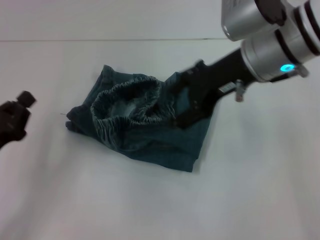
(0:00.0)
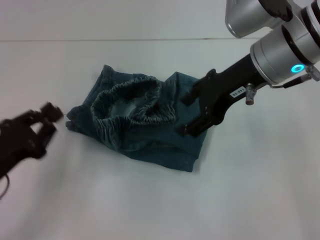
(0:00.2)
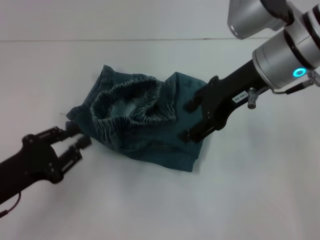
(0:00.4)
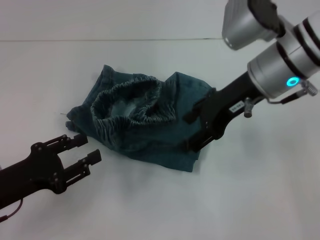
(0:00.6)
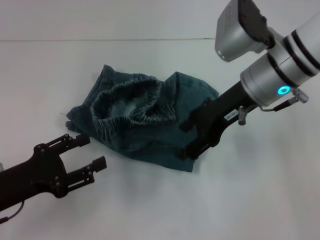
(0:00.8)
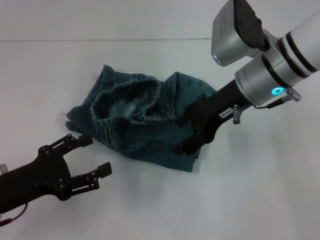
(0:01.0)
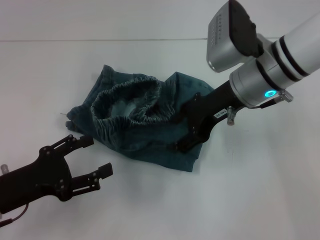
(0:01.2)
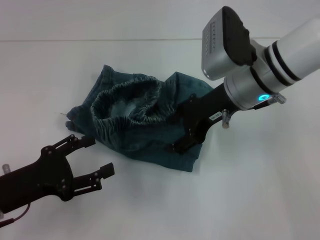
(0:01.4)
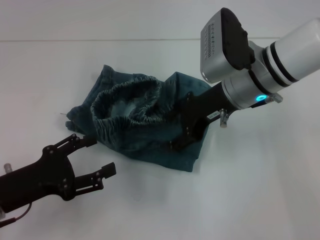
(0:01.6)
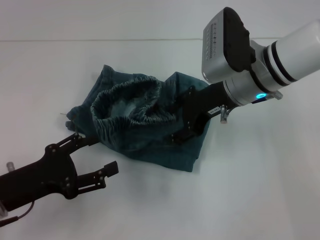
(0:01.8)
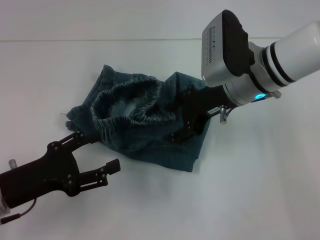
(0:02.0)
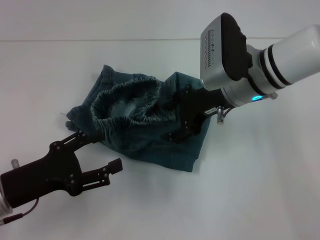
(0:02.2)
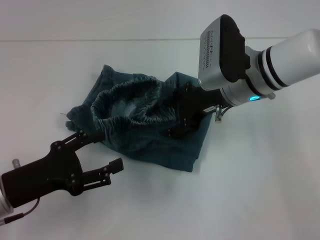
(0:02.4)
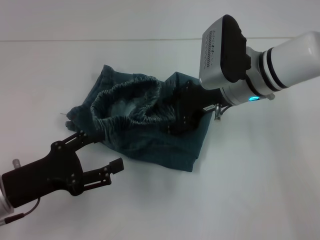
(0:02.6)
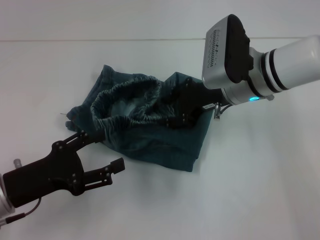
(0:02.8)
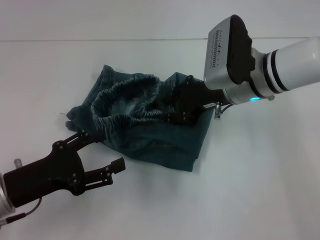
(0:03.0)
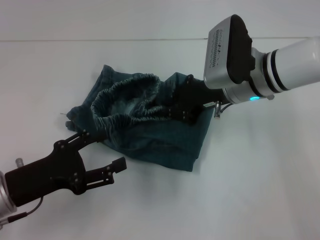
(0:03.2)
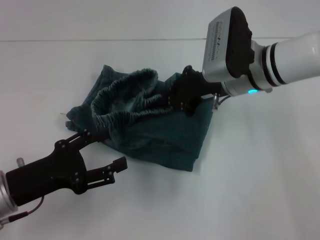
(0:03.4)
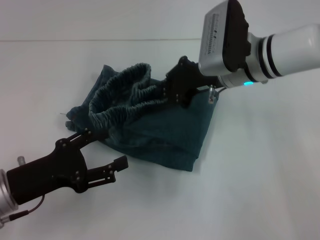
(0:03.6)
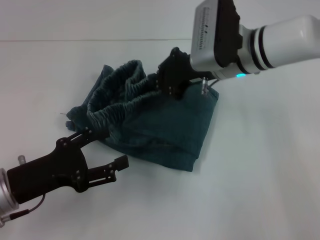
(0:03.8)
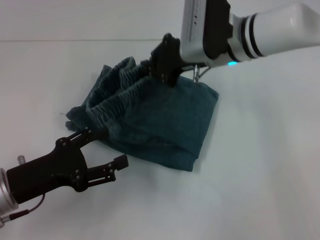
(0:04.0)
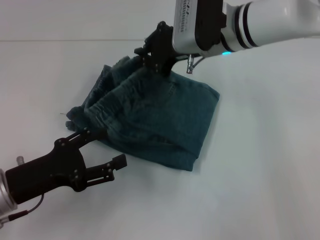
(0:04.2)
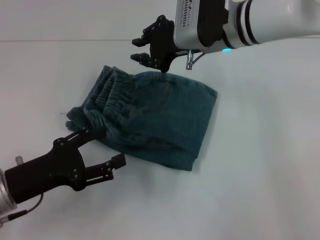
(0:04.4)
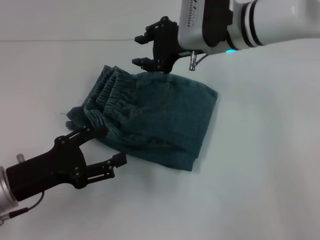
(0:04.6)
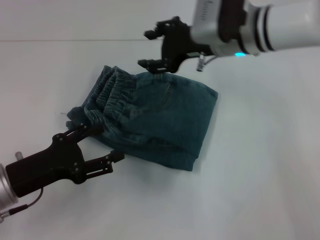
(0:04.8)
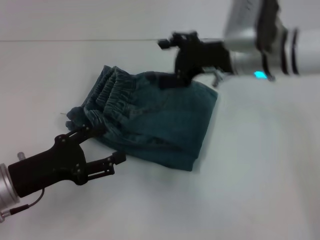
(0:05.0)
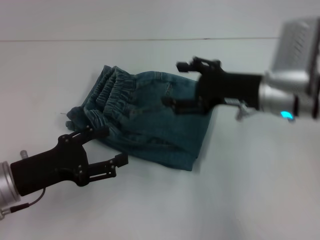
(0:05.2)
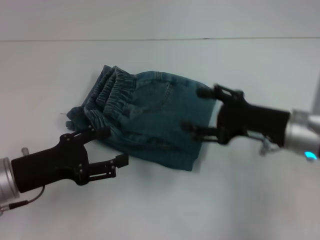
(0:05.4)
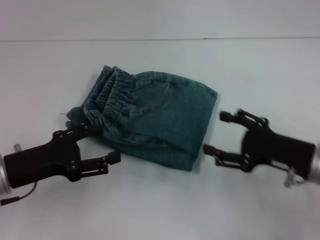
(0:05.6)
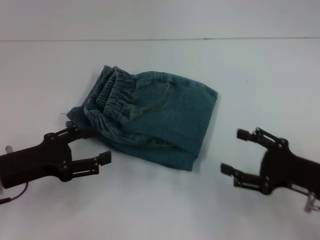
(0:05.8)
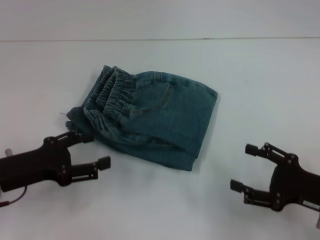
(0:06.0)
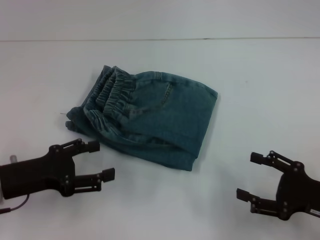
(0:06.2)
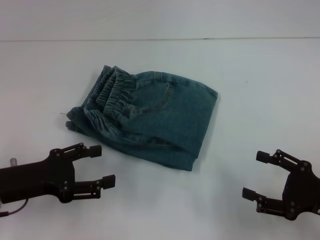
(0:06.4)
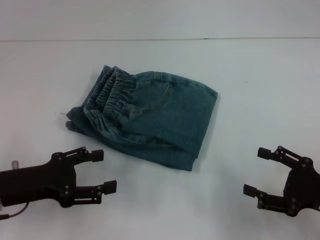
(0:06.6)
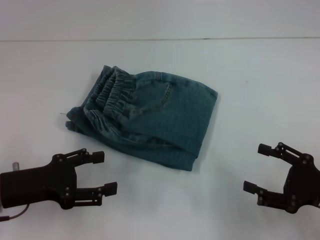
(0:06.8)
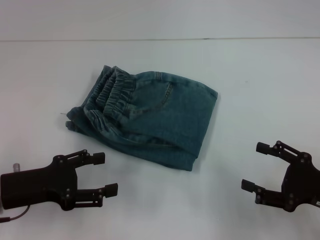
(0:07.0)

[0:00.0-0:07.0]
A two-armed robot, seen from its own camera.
Step, 0:00.0 to 0:04.2: Fold to the left with your right hand.
0:00.0 to 0:01.4: The right gripper goes approximately 5 cm downward; the left gripper opens up.
0:01.4 to 0:02.8: There are only small adjustments of the grippers.
0:02.8 to 0:04.2: The right gripper shifts by some 5 cm, and closes its fingers.
0:04.2 to 0:05.6: The right gripper is displaced backward, to the right and downward by approximately 25 cm, and opens its fingers.
0:05.6 to 0:07.0: The right gripper shifts some 10 cm backward and to the right.

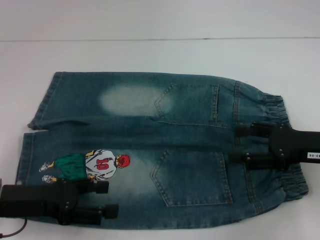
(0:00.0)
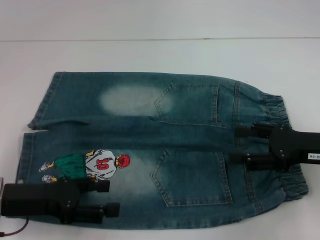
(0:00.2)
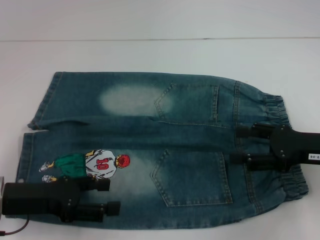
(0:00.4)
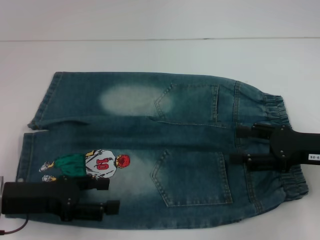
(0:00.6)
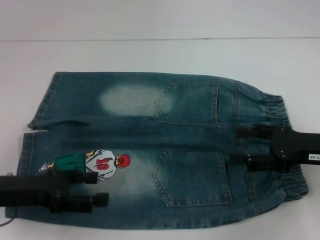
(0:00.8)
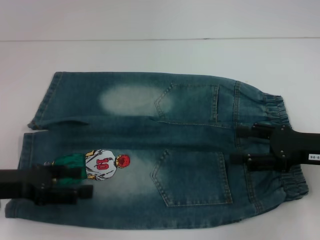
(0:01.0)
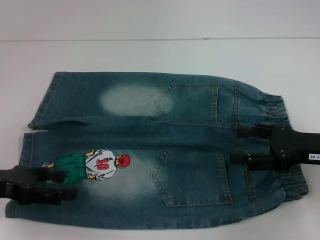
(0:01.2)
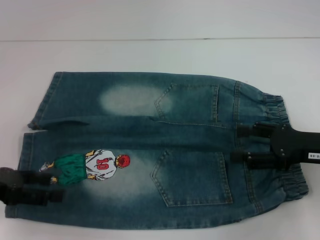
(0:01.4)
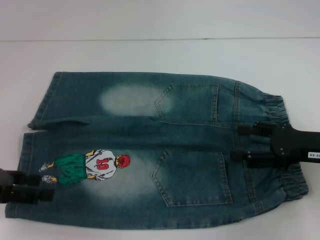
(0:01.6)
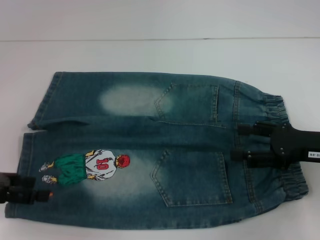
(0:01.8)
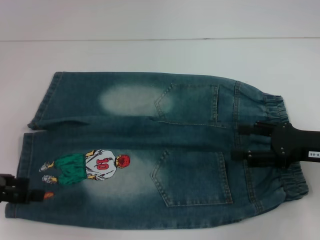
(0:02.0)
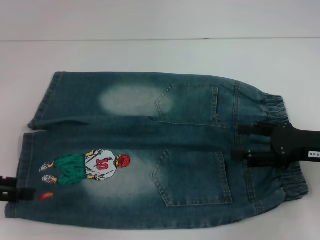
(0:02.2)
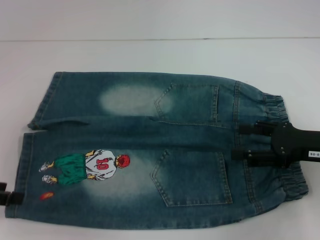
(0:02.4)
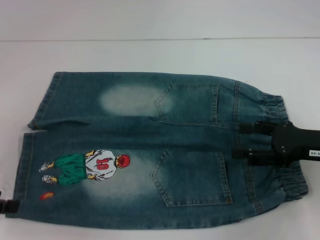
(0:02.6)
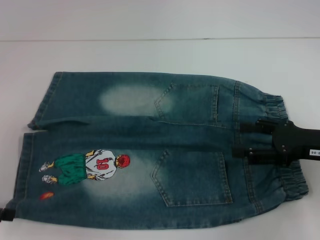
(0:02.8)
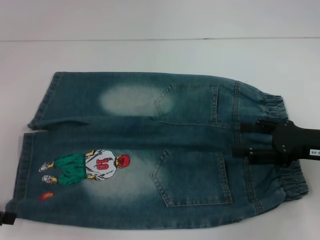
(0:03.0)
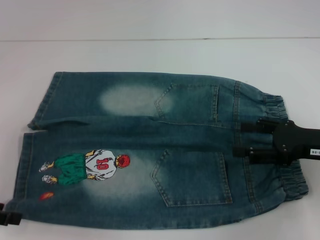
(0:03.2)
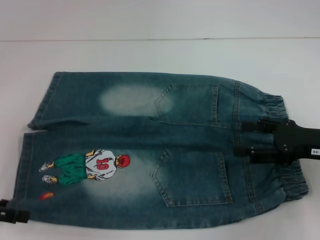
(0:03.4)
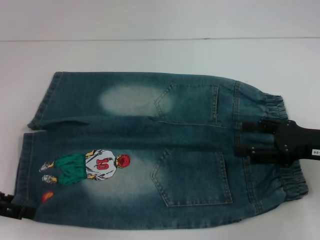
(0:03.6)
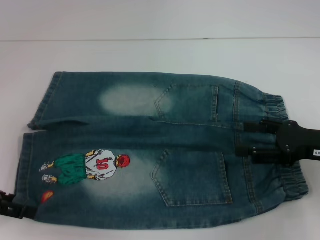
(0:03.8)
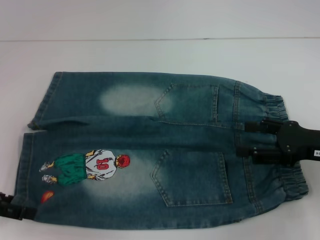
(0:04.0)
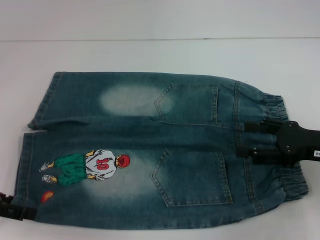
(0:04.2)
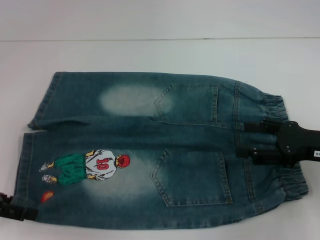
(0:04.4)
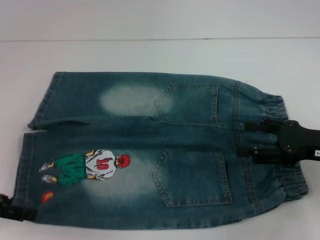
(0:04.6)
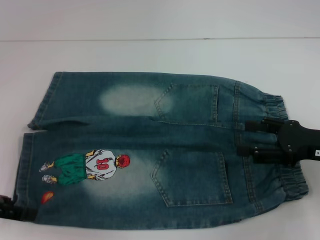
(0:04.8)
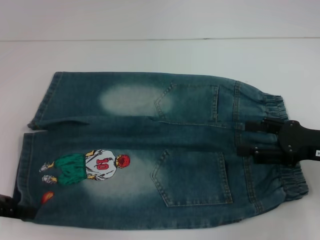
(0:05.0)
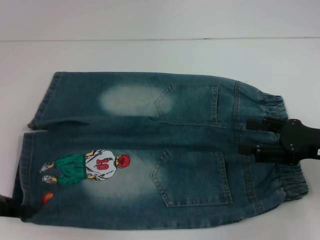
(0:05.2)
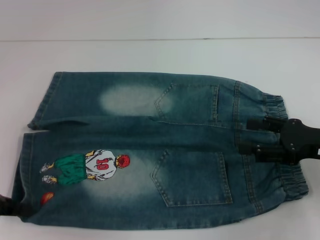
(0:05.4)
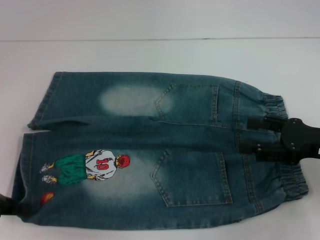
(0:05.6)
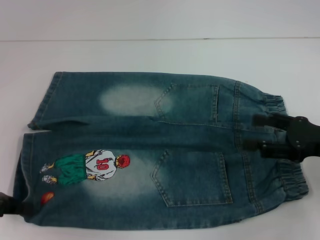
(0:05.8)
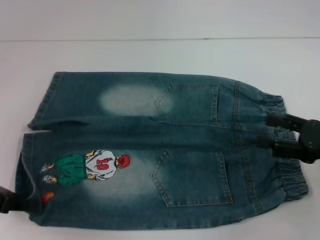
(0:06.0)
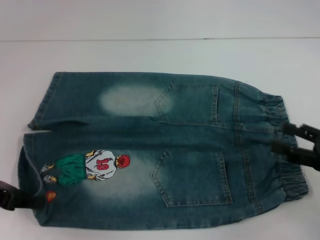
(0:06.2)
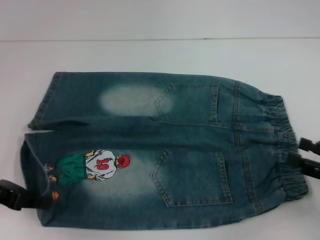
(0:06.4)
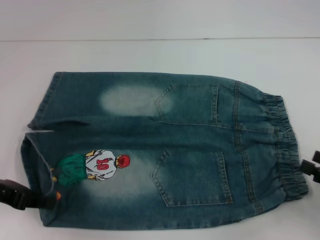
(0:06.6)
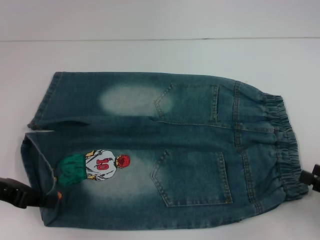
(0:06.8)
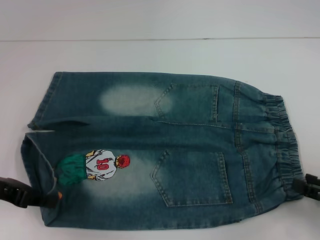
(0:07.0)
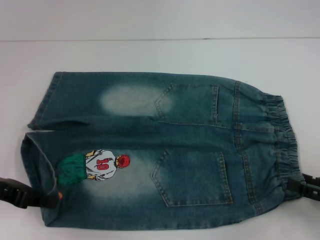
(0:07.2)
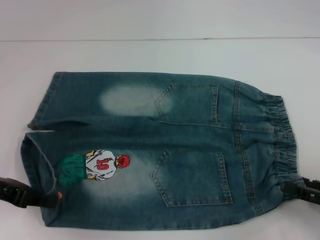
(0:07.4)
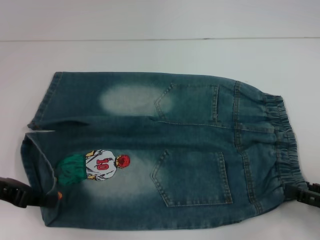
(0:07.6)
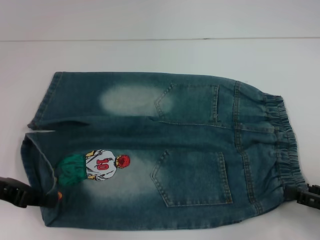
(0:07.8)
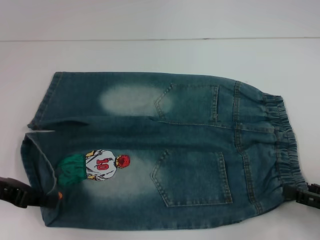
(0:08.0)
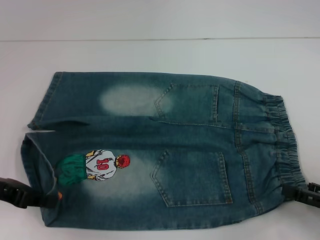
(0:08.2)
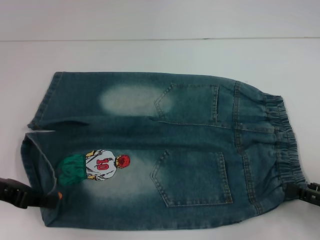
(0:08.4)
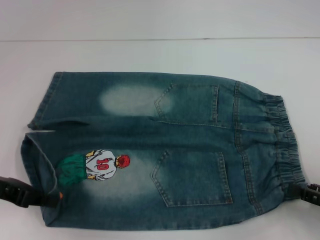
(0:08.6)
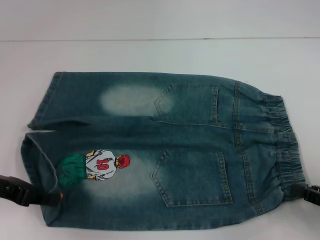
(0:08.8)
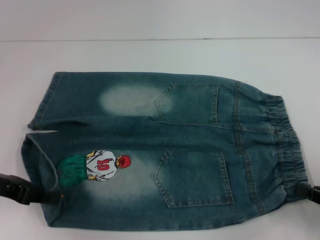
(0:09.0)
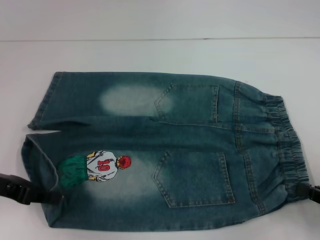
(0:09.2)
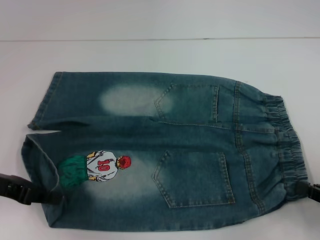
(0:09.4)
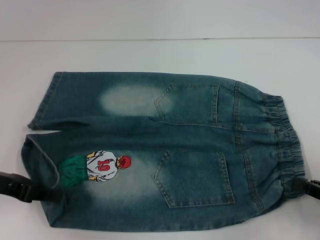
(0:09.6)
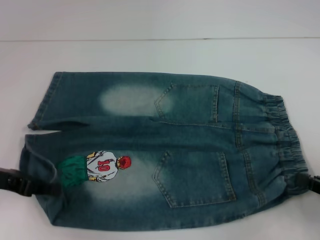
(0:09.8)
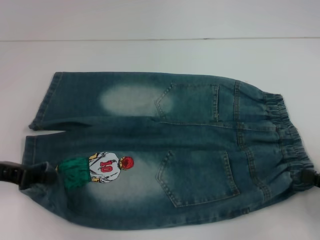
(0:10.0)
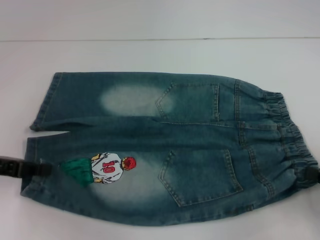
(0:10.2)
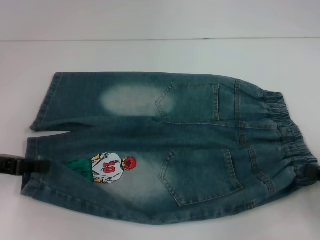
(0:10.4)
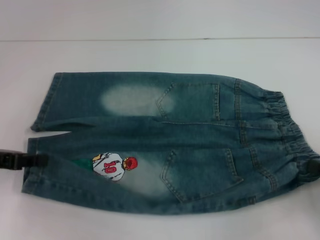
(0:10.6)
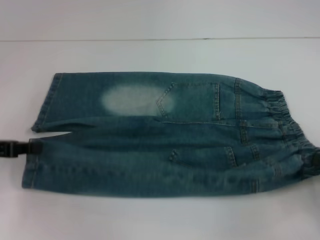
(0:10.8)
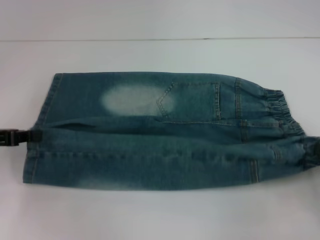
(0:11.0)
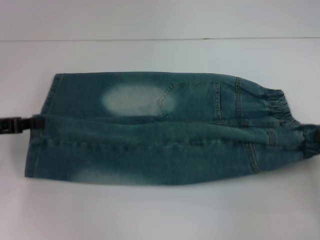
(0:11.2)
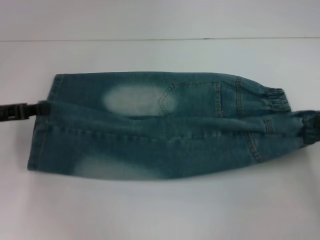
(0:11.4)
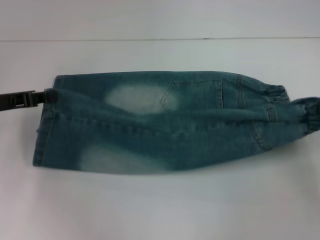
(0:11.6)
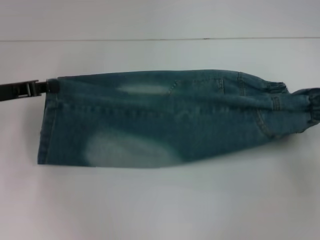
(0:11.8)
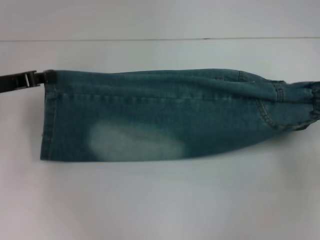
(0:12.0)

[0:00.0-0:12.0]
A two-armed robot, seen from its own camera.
Step, 0:00.0 to 0:05.2: Grab the lower left pant leg with your left hand.
Step, 0:05.6 to 0:09.8: Hold the lower right waistband with your right hand.
0:00.0 to 0:01.6: The left gripper shifts some 5 cm to the left.
0:01.6 to 0:04.4: There are only small adjustments of the grippers.
0:04.4 to 0:06.0: The left gripper closes its fingers.
0:06.0 to 0:07.6: The right gripper heads backward and downward, covering roughly 10 cm.
0:07.6 to 0:09.0: The right gripper closes its fingers.
0:09.0 to 0:10.4: The grippers make only small movements.
0:10.4 to 0:12.0: The right gripper heads forward and upward, covering roughly 15 cm; the left gripper shifts about 5 cm forward.

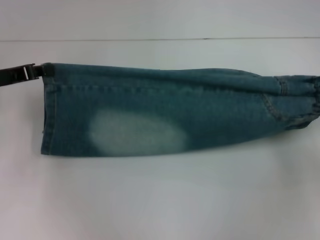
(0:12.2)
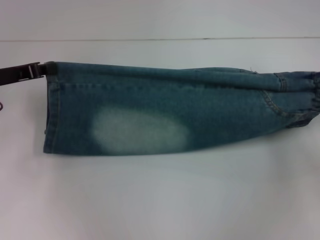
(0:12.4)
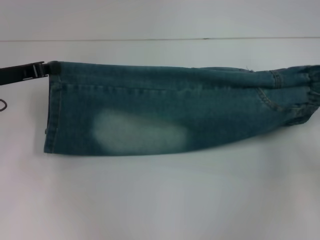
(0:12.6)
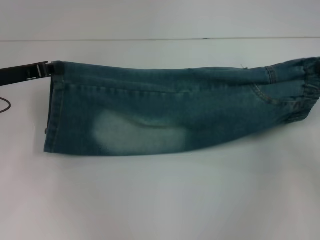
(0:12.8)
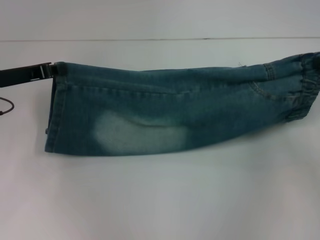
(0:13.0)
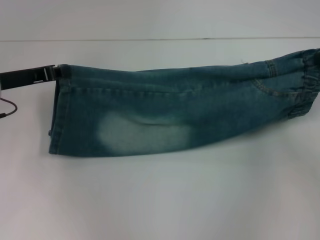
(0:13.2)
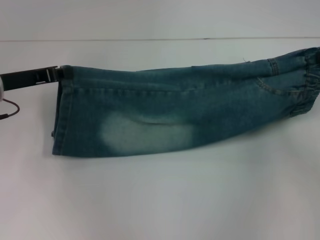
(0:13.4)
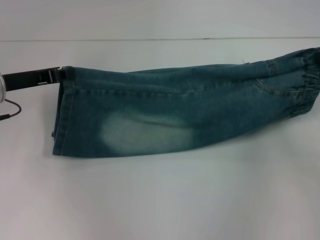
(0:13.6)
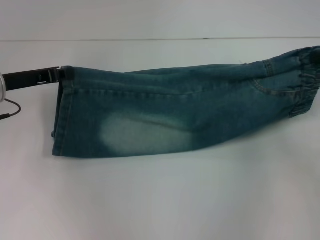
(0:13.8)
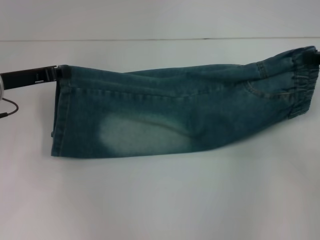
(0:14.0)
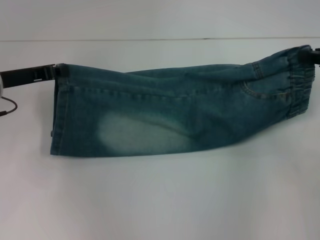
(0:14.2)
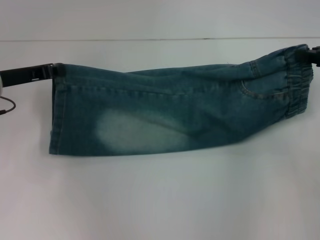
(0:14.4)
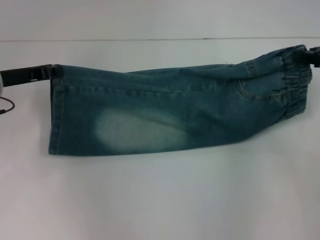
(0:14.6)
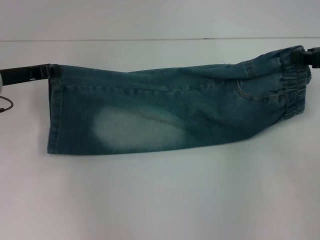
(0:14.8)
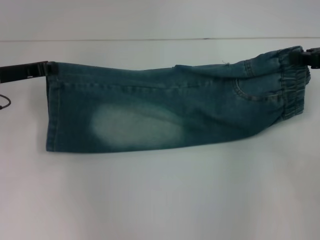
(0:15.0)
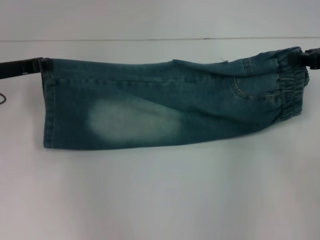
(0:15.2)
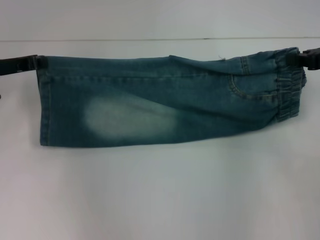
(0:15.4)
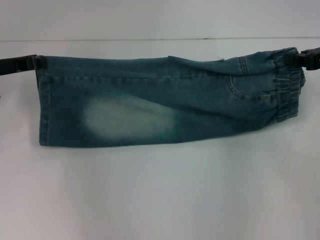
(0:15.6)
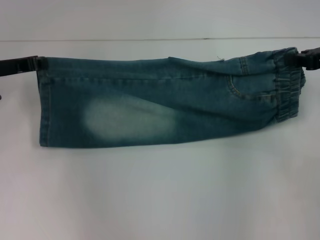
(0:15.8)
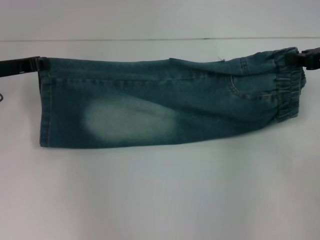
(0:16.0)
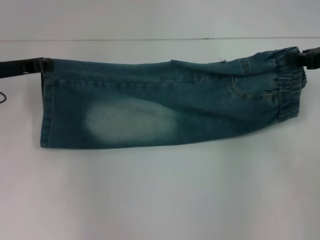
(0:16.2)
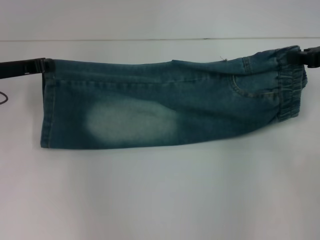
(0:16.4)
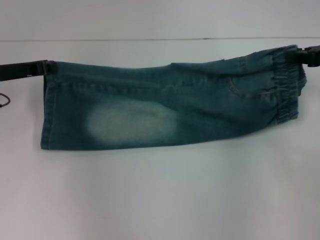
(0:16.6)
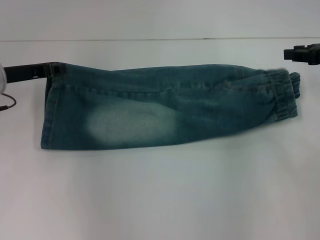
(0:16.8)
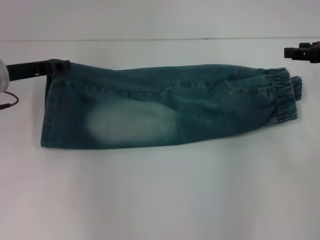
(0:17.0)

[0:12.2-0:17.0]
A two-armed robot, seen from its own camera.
Step, 0:12.2 to 0:16.8: Fold upward with your right hand.
0:12.2 to 0:13.8: The right gripper travels forward by roughly 5 cm.
0:13.8 to 0:17.0: There are only small adjustments of the grippers.
